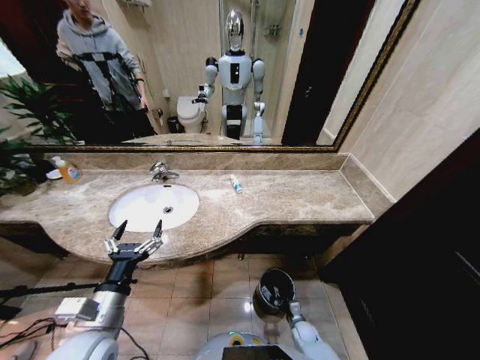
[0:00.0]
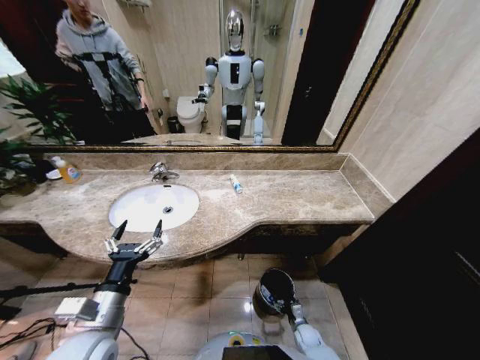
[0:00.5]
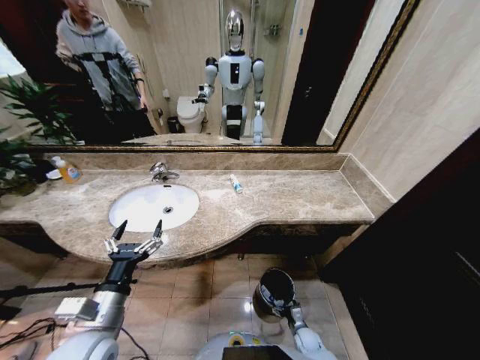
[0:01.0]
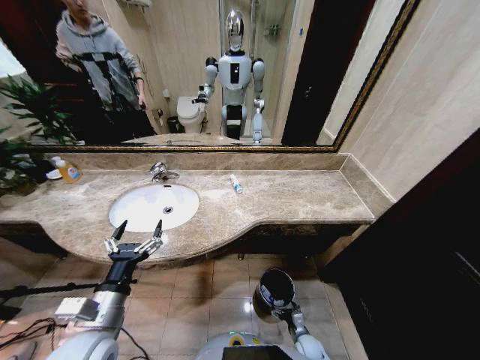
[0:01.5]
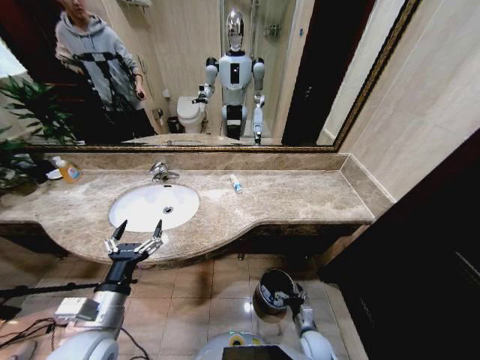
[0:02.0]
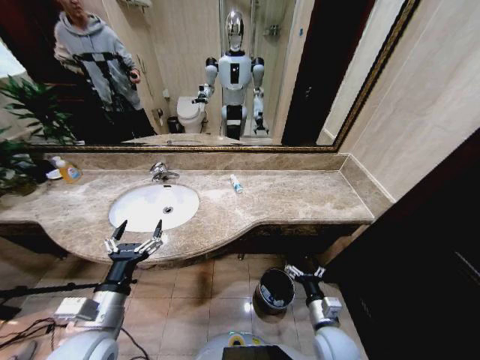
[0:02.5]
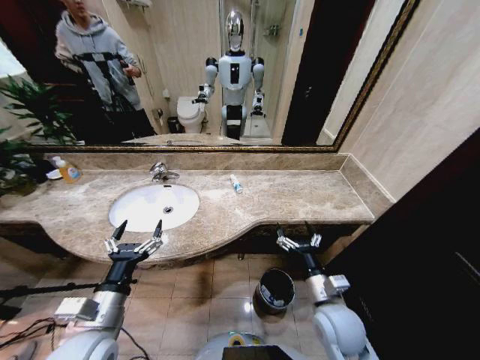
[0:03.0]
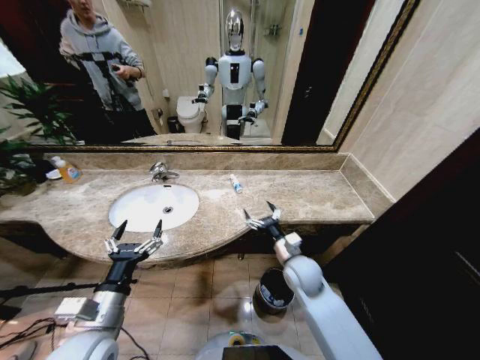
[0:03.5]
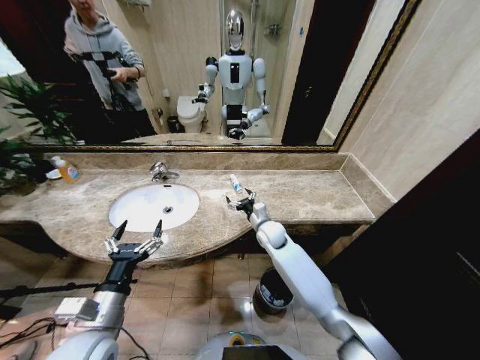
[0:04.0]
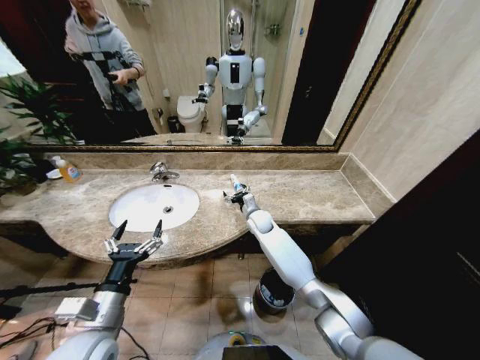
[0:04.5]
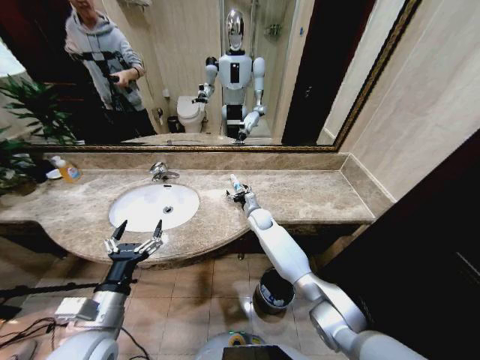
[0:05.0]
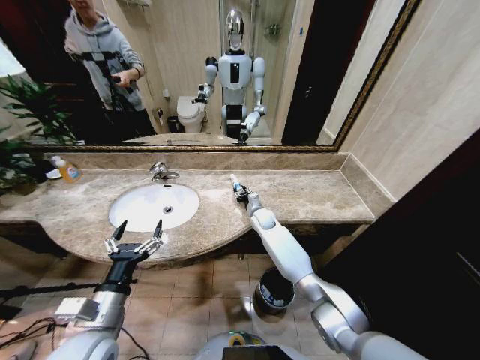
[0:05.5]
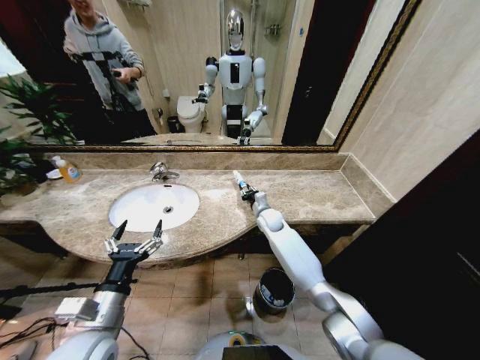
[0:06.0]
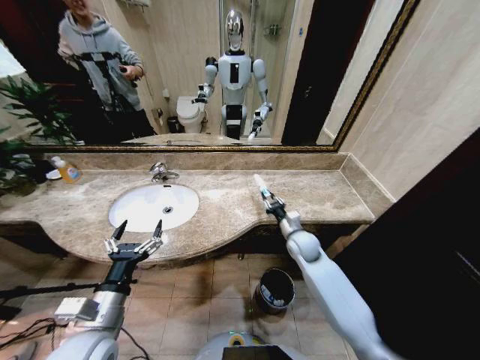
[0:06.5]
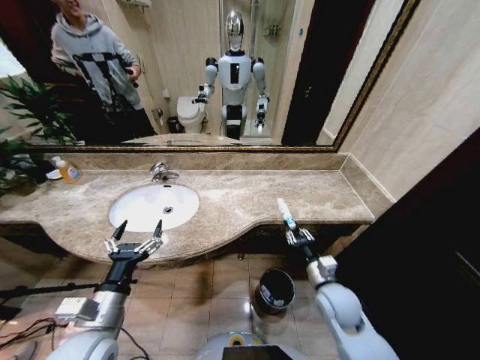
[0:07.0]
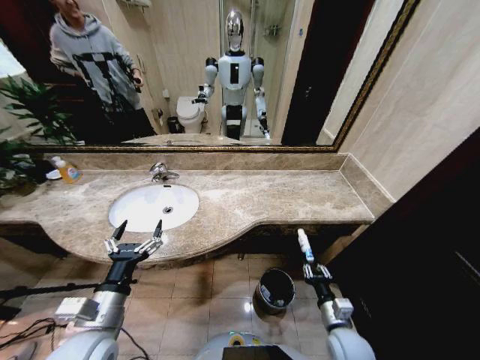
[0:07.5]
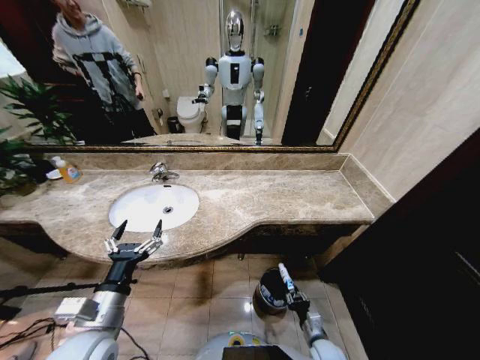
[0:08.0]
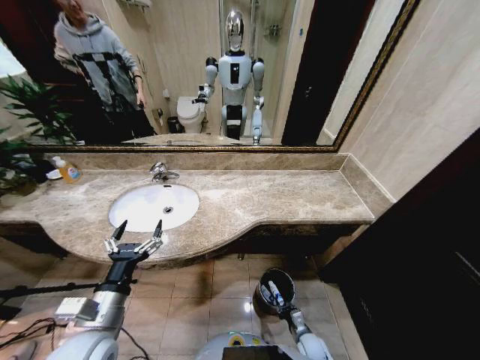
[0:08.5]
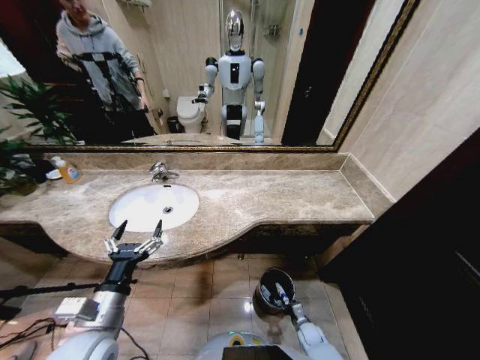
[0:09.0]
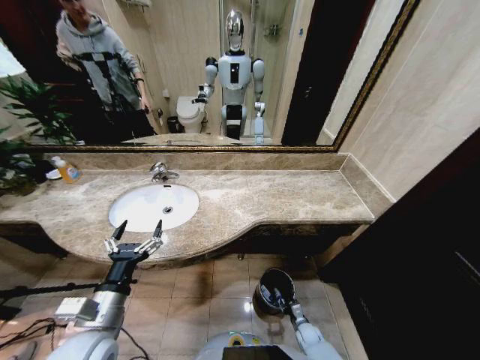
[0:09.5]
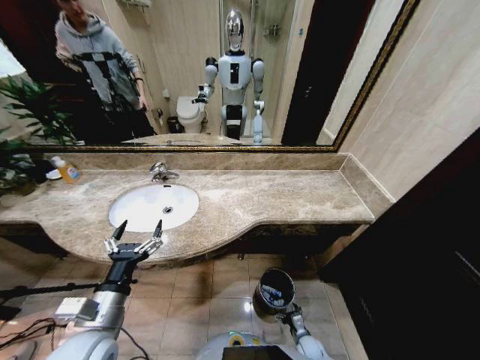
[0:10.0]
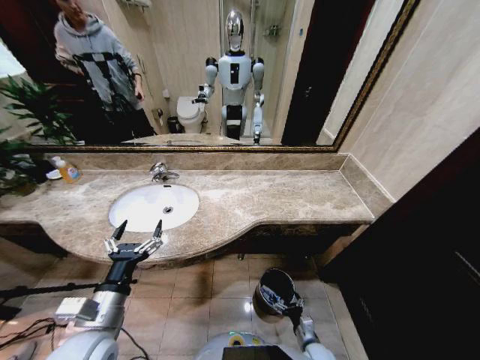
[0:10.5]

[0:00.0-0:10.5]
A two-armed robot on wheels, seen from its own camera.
Task of the whole recording: Pick up the trash from the sink and place it in the trash bin.
0:00.0 to 0:02.0: The right gripper goes roughly 10 cm upward, and opens.
0:02.0 to 0:04.0: The right gripper shifts approximately 40 cm forward, upward and to the left.
0:04.0 to 0:06.5: The right gripper goes about 15 cm to the right and backward, and closes its fingers.
0:06.5 to 0:08.5: The right gripper travels downward and backward by some 35 cm.
0:08.5 to 0:10.5: The right gripper travels downward and back again, some 5 cm each way, and opens up.

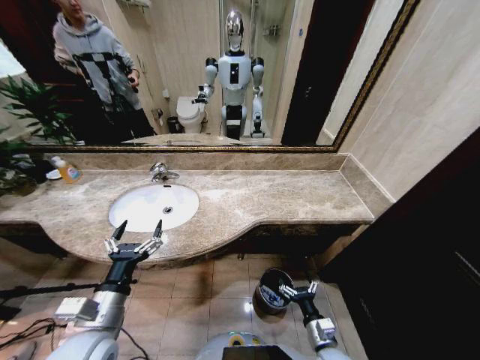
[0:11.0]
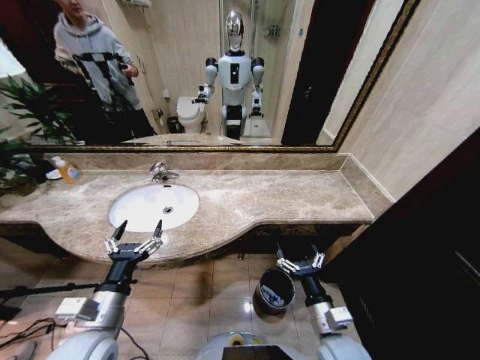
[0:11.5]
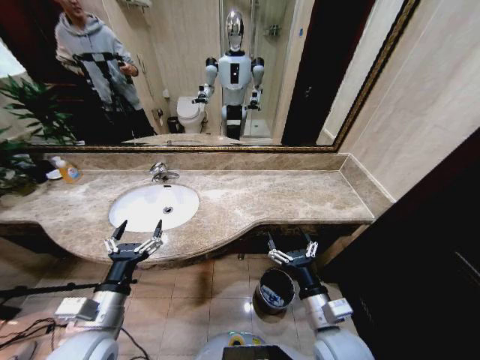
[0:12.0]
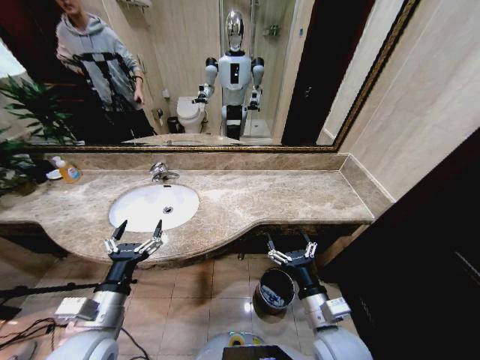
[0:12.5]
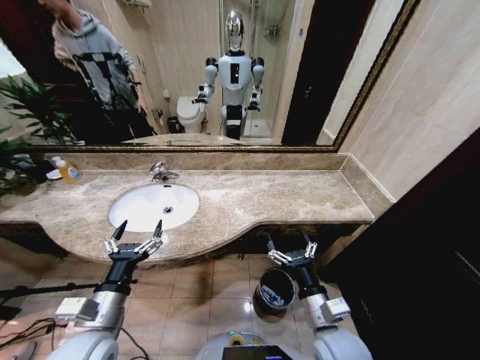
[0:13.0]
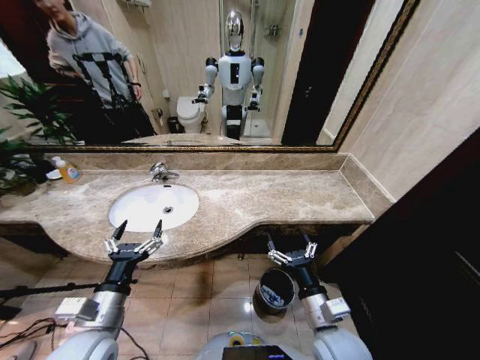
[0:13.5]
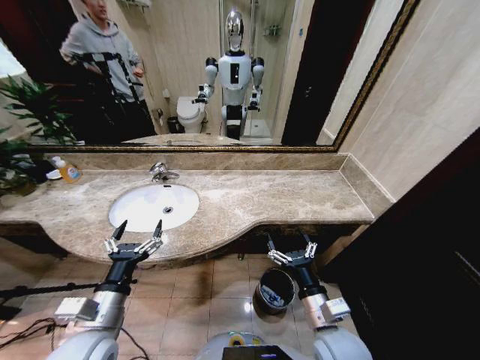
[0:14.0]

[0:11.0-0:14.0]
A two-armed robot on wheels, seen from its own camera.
Task of the whole recording: Pick up the trash from the sink and place it in the trash bin.
0:11.0 to 0:12.5: The right gripper shifts roughly 15 cm upward.
0:12.5 to 0:14.0: The two grippers keep their place.

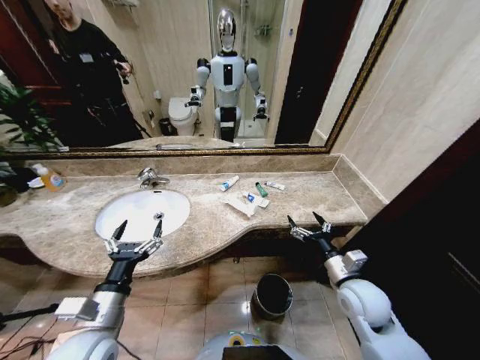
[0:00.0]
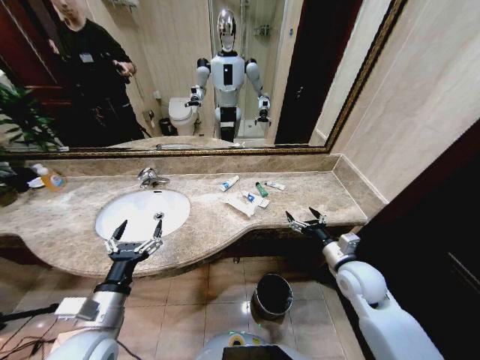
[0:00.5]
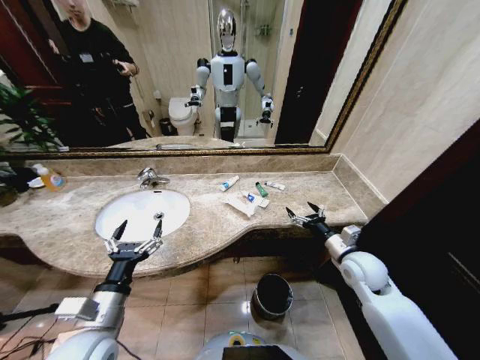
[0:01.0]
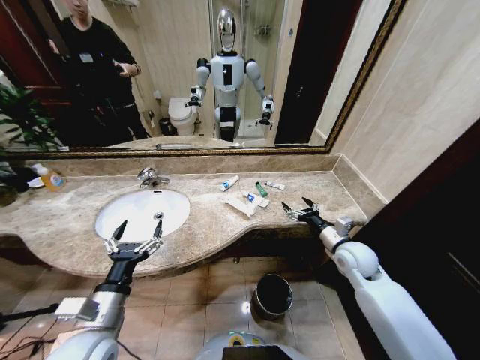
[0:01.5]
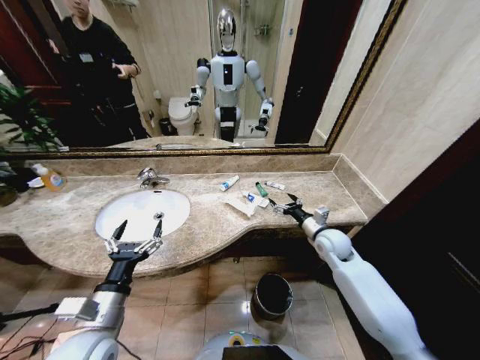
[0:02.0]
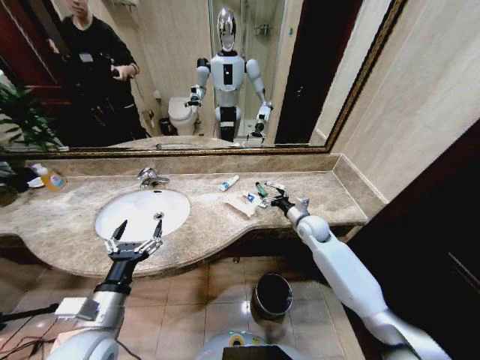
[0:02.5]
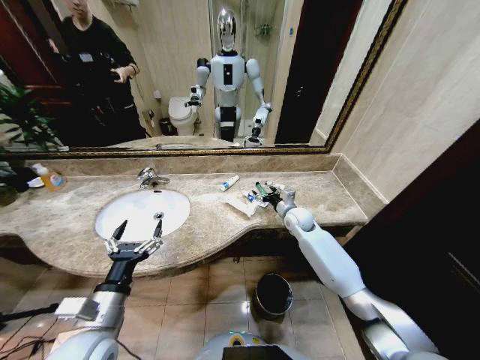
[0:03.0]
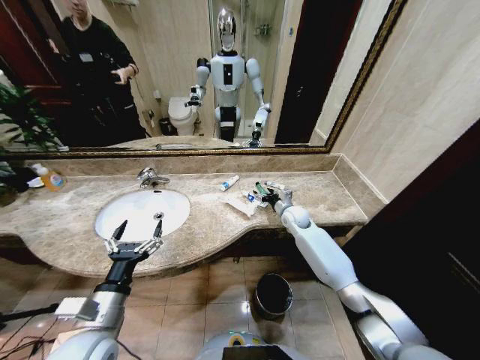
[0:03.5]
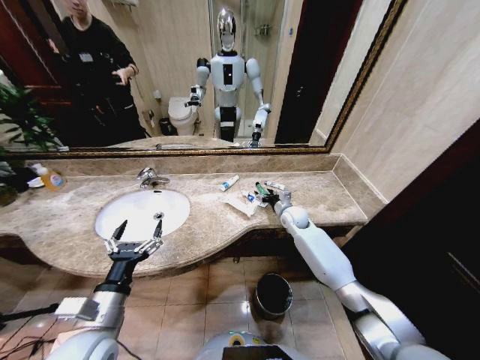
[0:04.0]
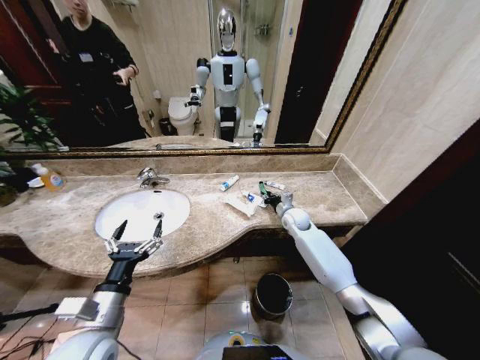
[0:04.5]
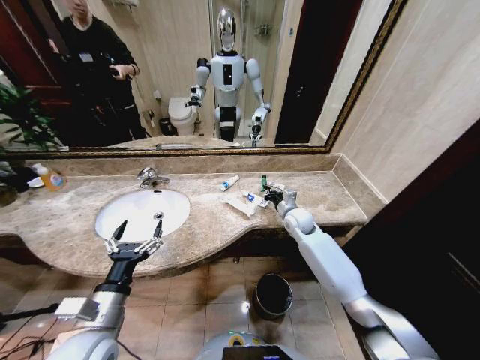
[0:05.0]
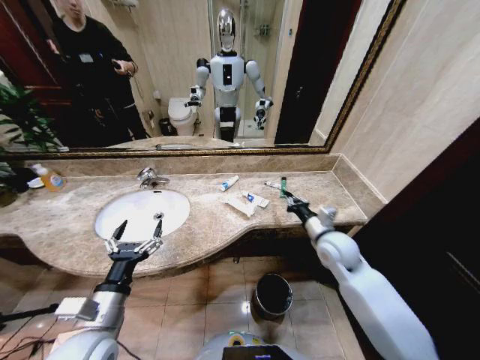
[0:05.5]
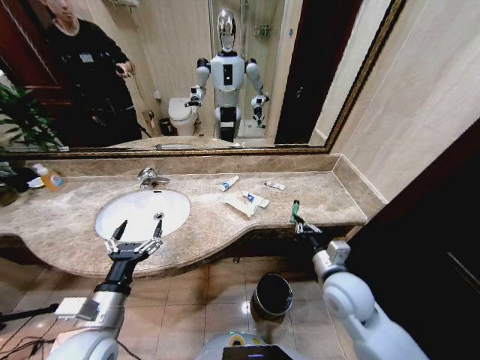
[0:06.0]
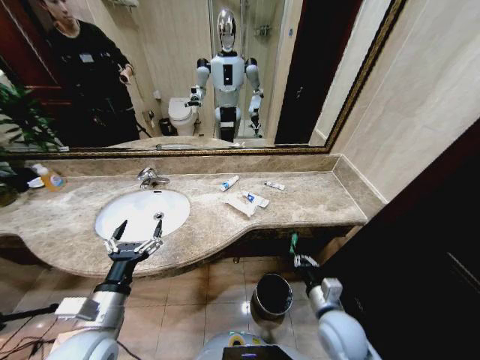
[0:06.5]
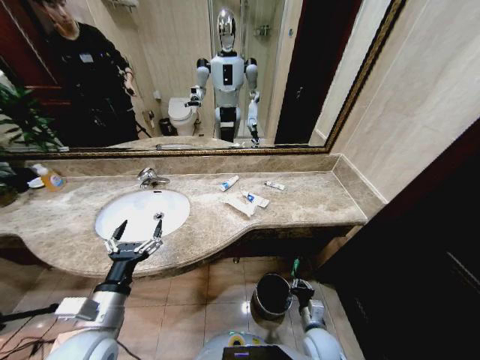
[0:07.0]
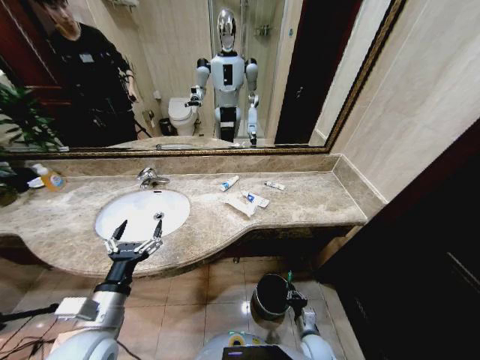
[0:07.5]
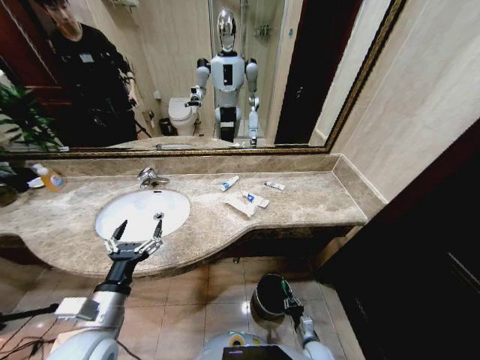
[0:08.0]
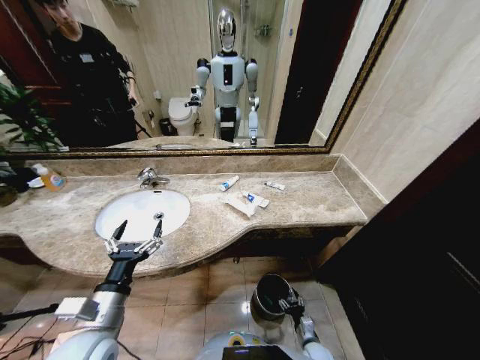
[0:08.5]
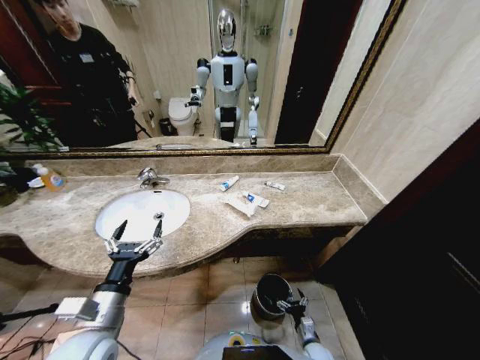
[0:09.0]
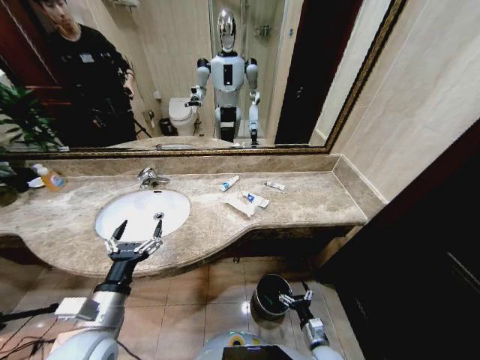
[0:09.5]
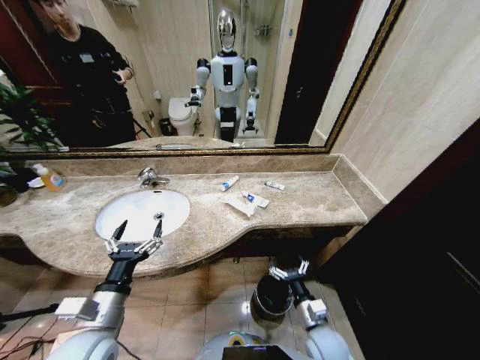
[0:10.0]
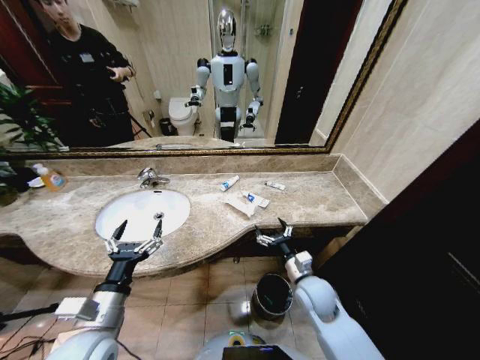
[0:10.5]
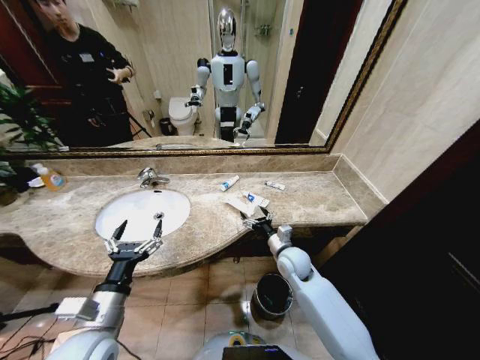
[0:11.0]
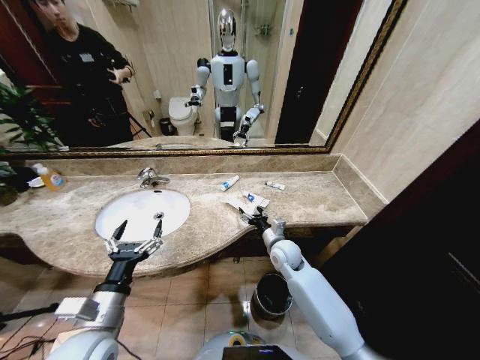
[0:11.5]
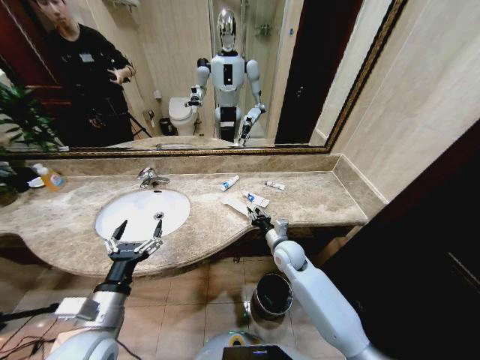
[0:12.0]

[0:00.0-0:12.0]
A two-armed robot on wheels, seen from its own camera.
Task of the whole recording: Pick up the trash from the sink and place it in the trash bin.
0:02.0 to 0:04.0: The right gripper is displaced forward and to the left by about 15 cm.
0:04.0 to 0:06.0: The right gripper heads backward, covering some 30 cm, and closes.
0:06.0 to 0:08.0: The right gripper is displaced downward by roughly 35 cm.
0:08.0 to 0:10.0: The right gripper shifts roughly 20 cm upward, and opens up.
0:10.0 to 0:12.0: The right gripper goes roughly 25 cm forward, and closes.
